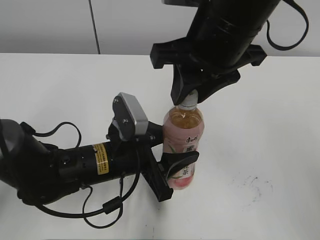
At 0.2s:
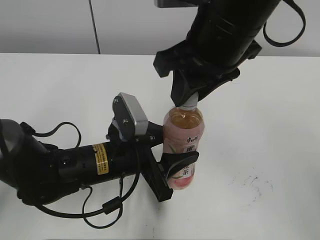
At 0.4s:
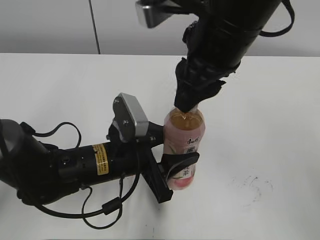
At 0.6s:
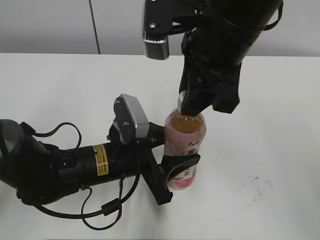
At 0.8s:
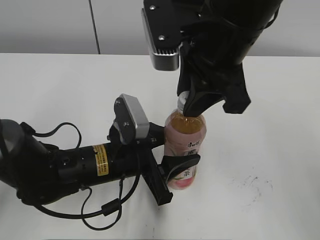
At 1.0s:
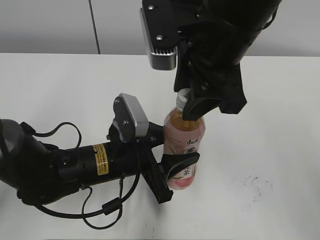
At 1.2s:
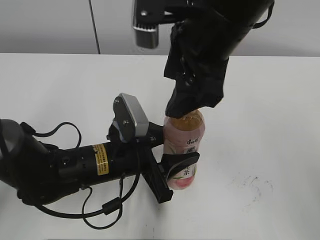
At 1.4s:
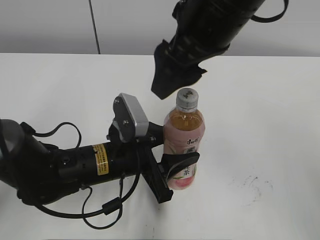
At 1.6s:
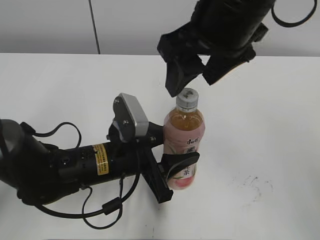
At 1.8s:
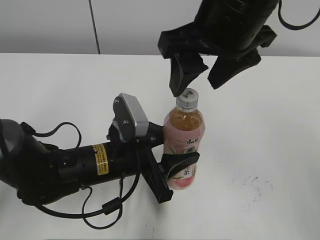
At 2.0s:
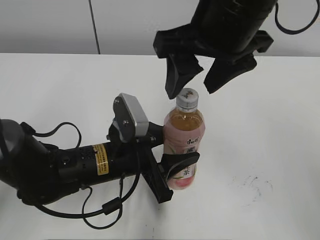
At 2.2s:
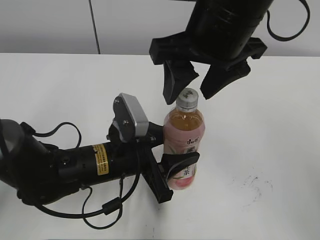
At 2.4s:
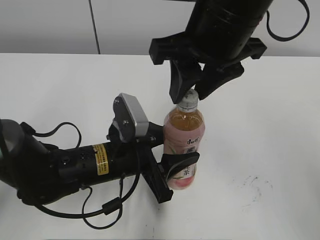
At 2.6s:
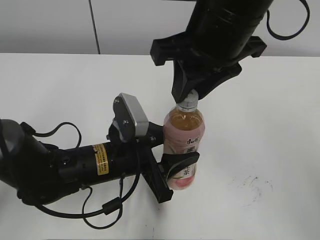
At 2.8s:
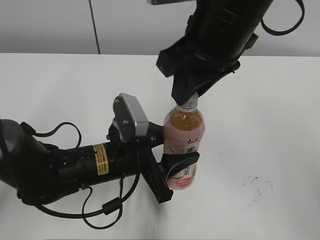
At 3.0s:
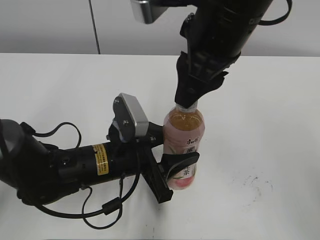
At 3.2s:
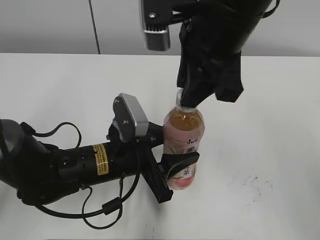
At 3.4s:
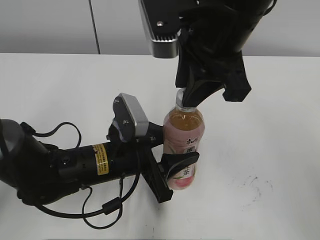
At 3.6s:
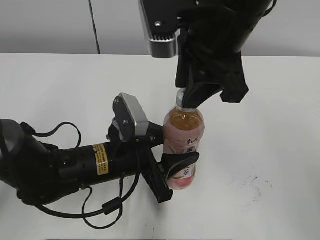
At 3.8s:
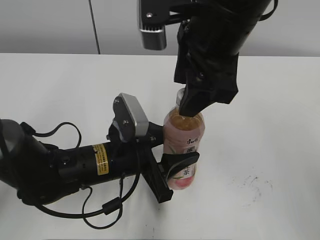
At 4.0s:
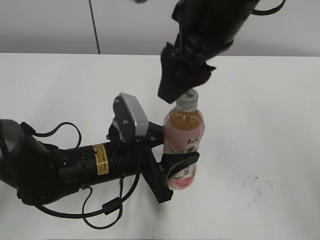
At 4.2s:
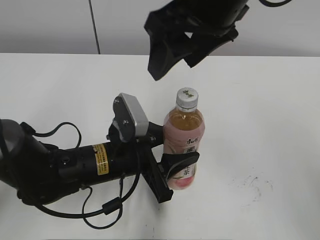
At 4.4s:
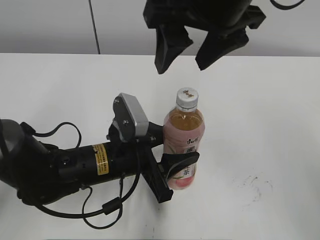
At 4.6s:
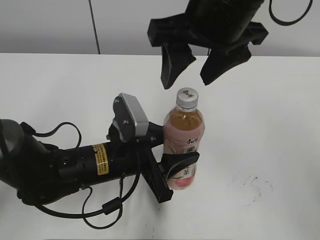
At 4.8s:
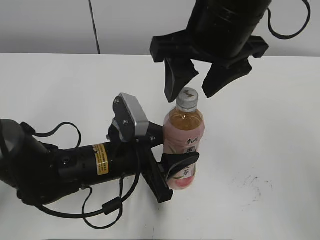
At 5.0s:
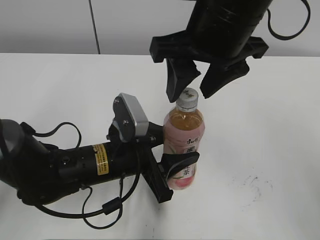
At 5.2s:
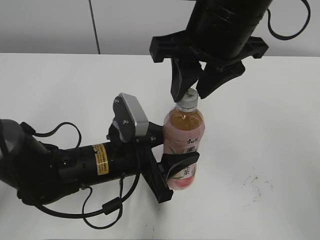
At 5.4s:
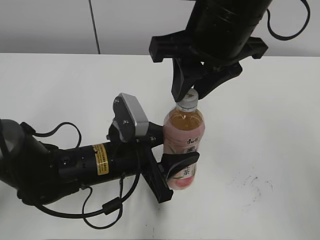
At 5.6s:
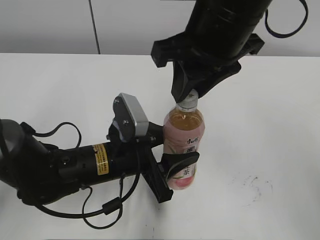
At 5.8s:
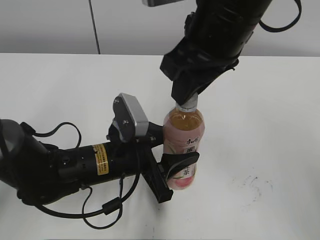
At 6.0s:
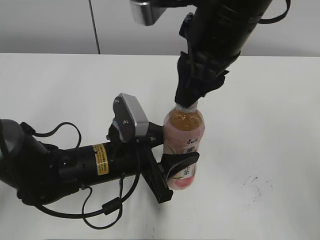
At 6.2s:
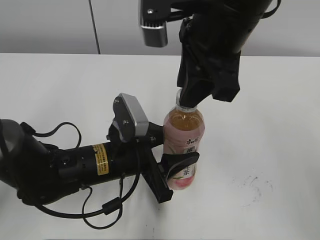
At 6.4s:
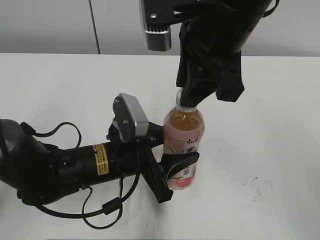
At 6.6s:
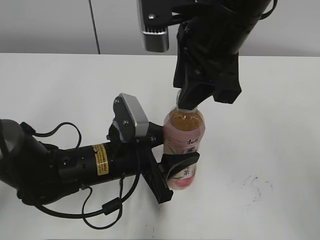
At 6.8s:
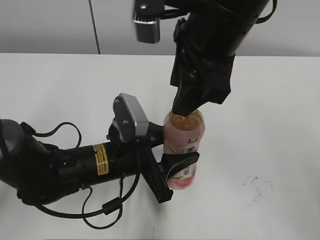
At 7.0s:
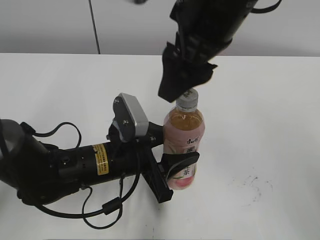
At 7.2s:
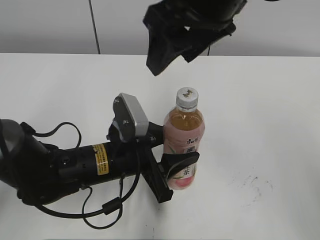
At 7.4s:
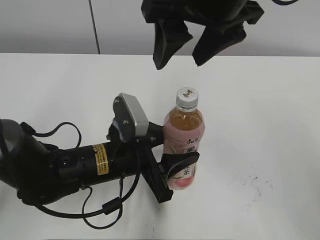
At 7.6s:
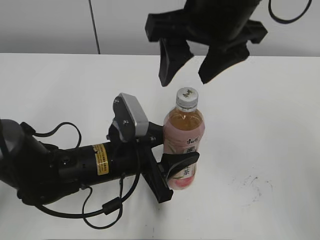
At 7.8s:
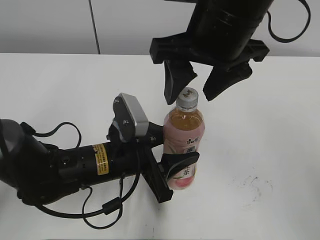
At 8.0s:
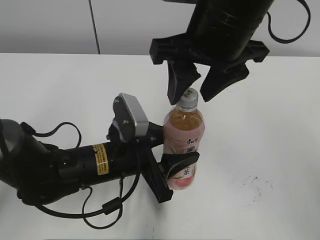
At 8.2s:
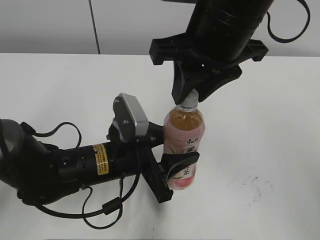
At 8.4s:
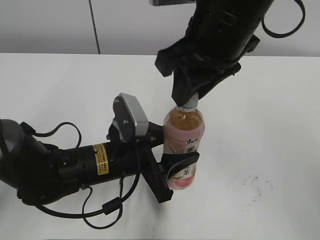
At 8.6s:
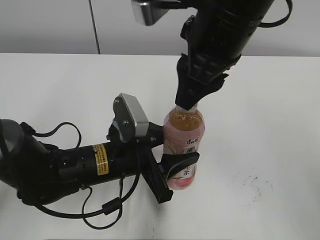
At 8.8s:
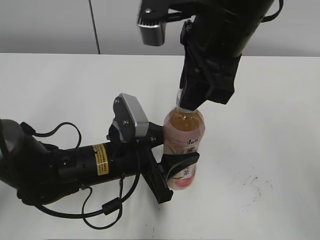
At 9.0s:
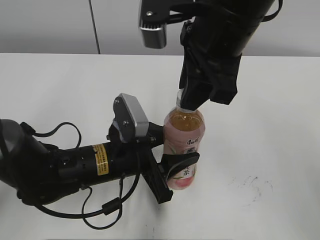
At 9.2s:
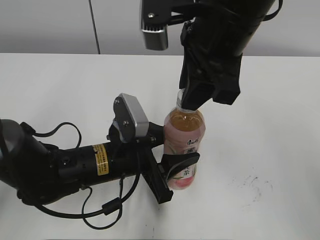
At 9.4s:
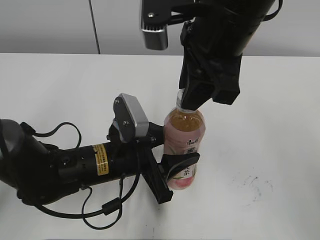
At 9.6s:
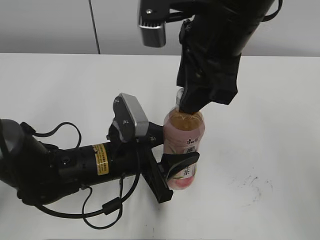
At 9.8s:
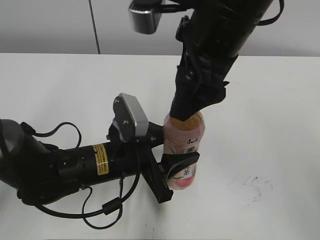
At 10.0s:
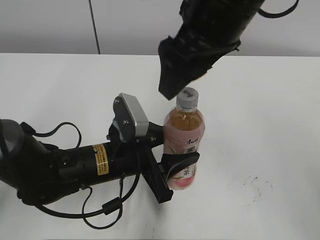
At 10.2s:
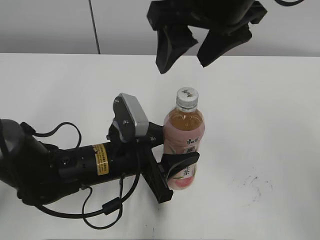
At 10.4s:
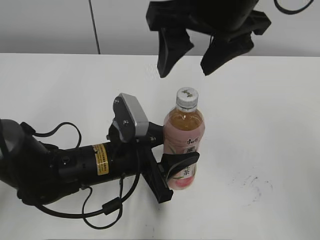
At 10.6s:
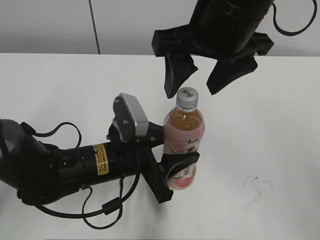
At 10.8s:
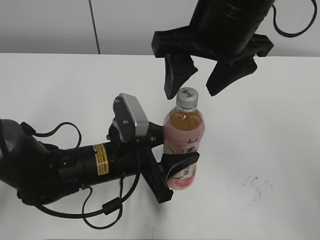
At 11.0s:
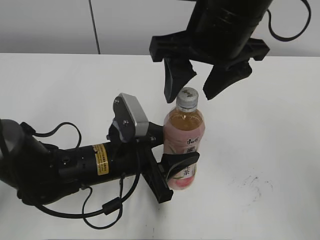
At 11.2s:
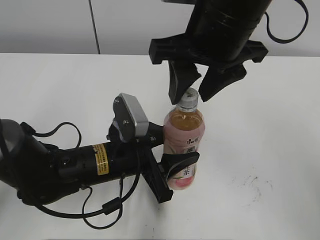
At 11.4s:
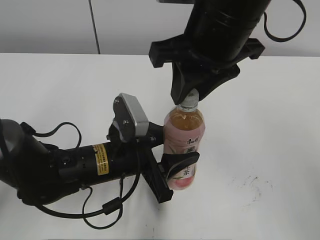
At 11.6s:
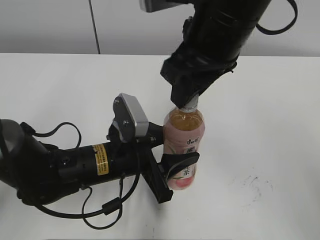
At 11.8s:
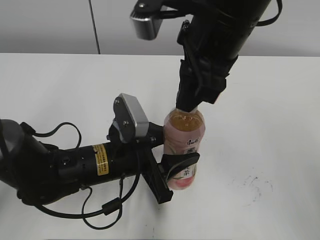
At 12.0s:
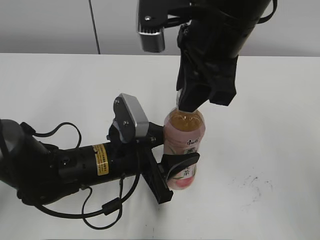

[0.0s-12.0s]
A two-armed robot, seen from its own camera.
0.0s to 1.6s: The right gripper opens.
1.6s to 3.0s: The right gripper closes.
3.0s to 4.4s: The right gripper opens.
4.4s to 6.0s: The right gripper closes.
6.0s to 7.6s: The right gripper opens up.
7.6s to 9.0s: The right gripper closes up.
9.0s to 10.4s: The right gripper opens up.
10.4s to 12.0s: The right gripper closes up.

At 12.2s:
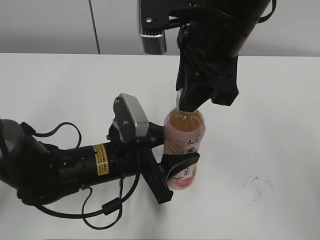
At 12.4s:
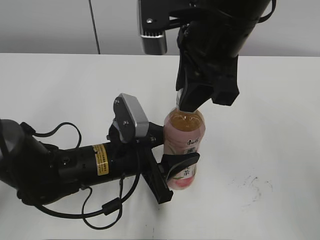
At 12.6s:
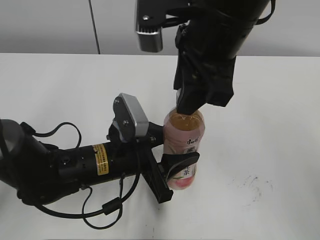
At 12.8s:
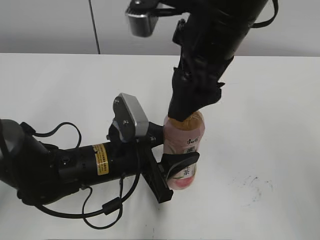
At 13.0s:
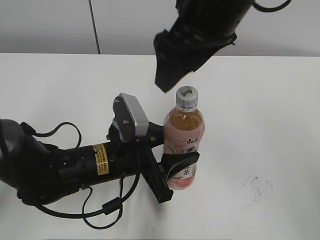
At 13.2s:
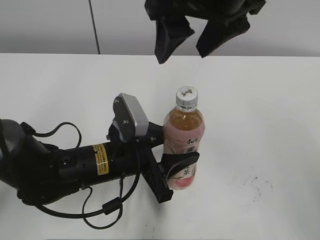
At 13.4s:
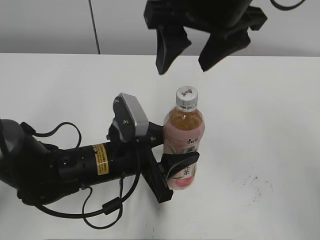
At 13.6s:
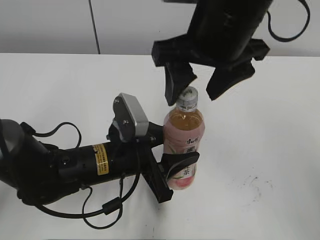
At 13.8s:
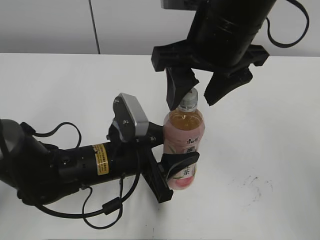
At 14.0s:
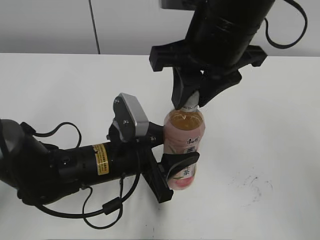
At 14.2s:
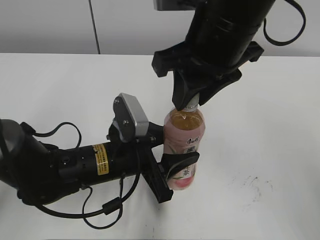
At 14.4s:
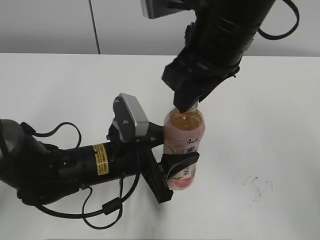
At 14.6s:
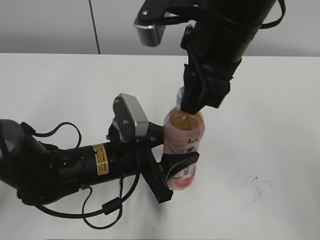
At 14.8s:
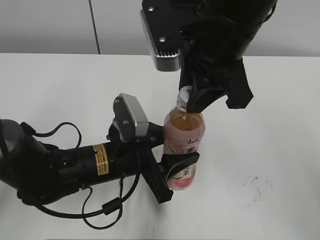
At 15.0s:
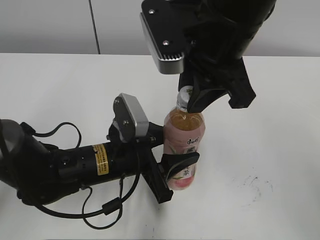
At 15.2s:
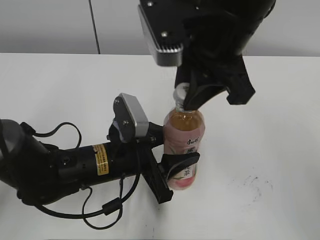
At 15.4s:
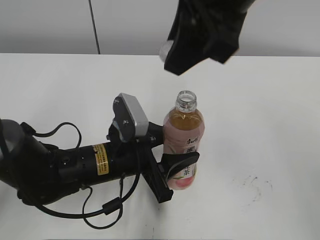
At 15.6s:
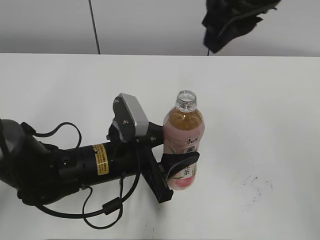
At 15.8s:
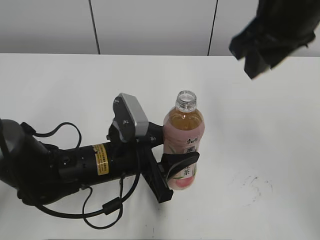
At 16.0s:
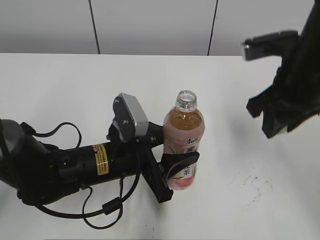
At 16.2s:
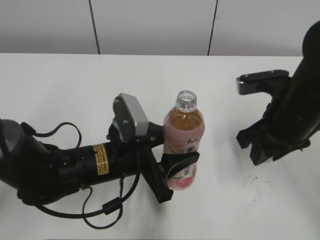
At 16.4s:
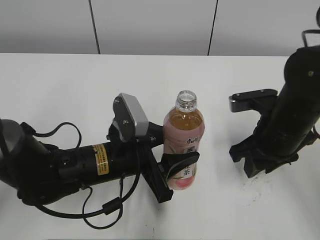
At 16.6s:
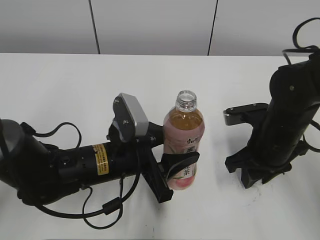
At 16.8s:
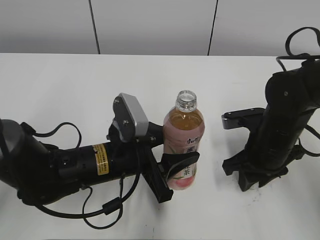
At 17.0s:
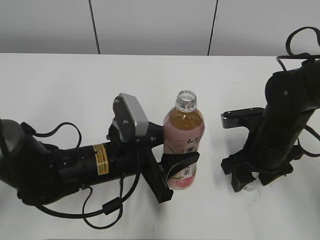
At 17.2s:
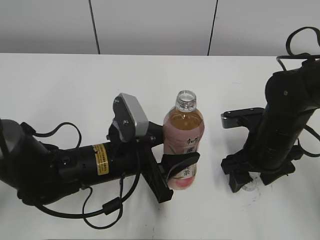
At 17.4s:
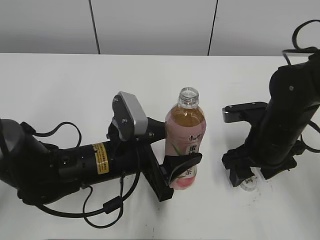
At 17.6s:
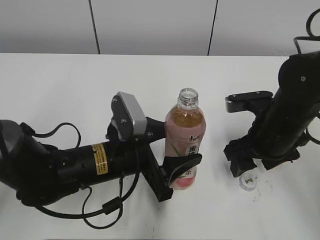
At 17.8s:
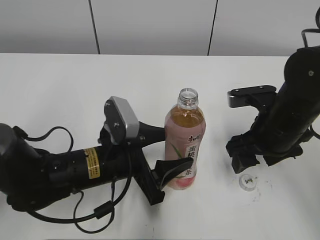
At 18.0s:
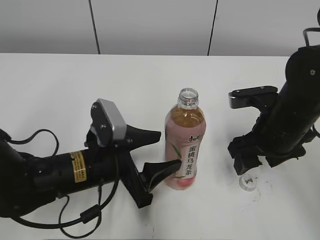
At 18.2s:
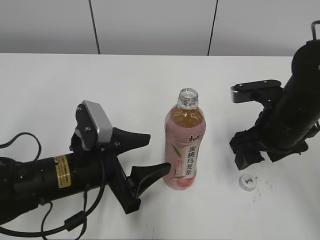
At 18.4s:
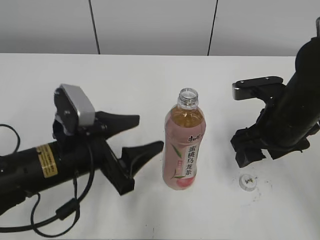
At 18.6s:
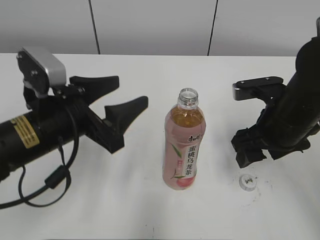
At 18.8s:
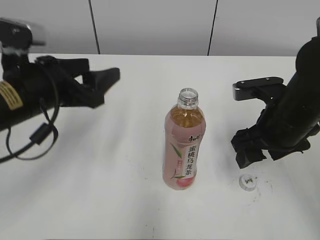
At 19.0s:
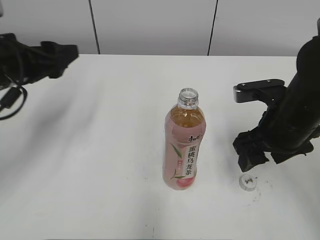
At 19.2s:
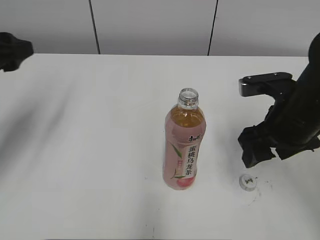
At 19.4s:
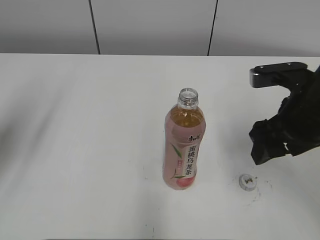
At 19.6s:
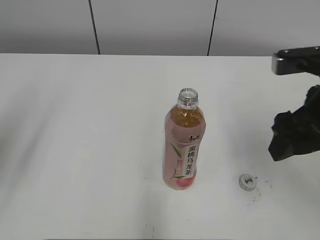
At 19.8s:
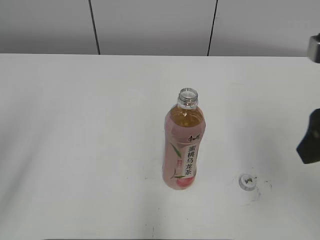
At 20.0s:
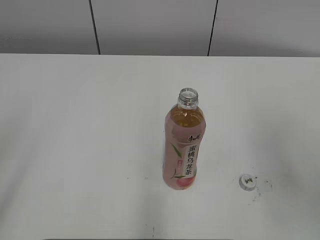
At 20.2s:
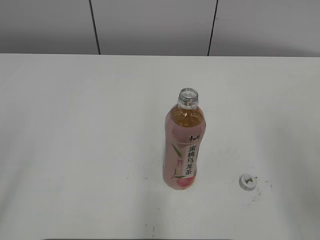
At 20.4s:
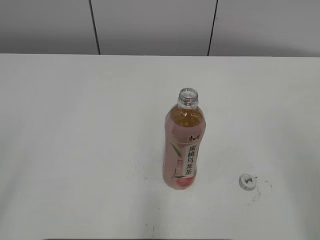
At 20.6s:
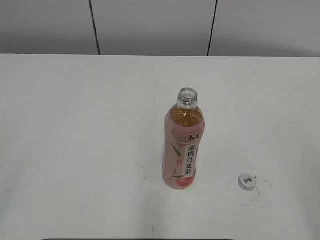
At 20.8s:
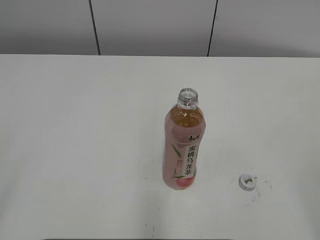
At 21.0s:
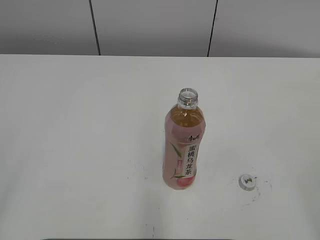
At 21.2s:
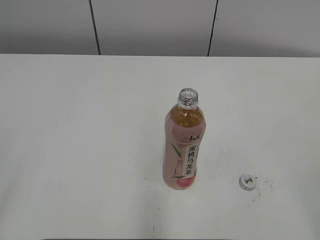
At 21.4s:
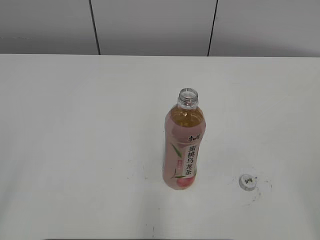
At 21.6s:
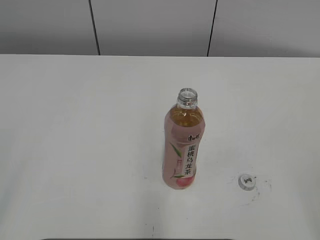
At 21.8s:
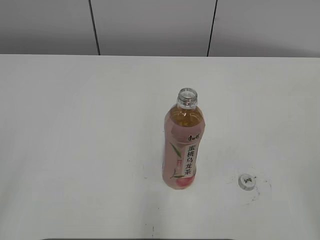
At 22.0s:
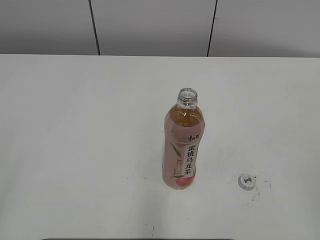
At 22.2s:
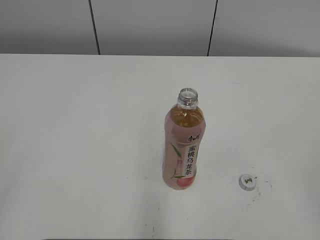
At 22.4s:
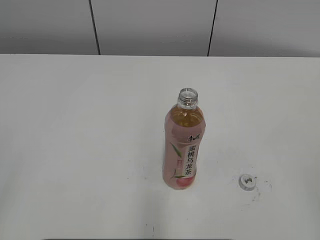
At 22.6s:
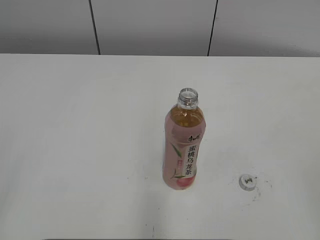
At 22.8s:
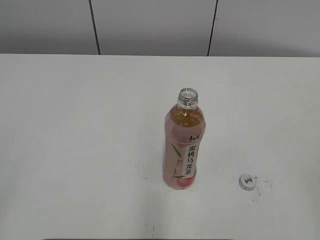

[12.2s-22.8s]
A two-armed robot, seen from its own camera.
Step, 15.6s to 17.2s: Place the bottle cap on the right.
Step, 17.4s to 18.4s: Place the Peach Oolong Tea with the left hand.
12.2s to 13.8s: The right gripper opens its fingers.
13.8s to 15.2s: The right gripper closes up.
15.2s to 16.8s: The right gripper travels downward and to the right by about 25 cm.
16.8s to 18.2s: The right gripper travels upward by some 5 cm, and opens. The left gripper ends up roughly 5 cm from where it was.
18.2s to 19.8s: The right gripper is displaced upward and backward by approximately 15 cm; the left gripper is displaced upward, to the left and backward by some 30 cm.
19.8s to 21.2s: The right gripper is displaced backward and to the right by roughly 20 cm.
